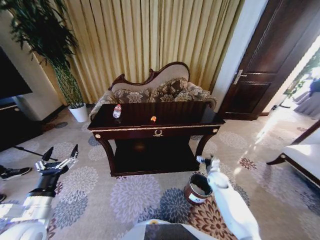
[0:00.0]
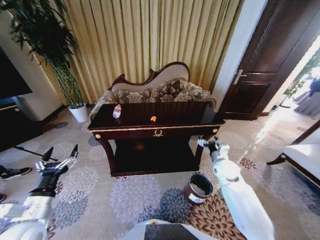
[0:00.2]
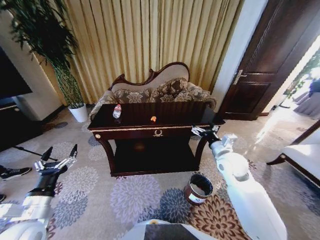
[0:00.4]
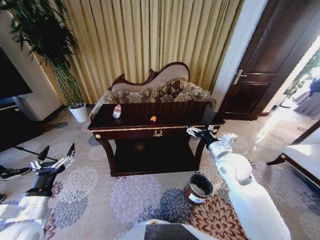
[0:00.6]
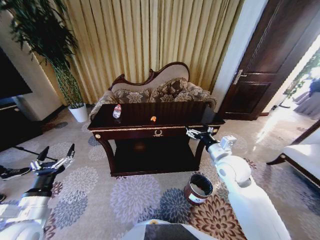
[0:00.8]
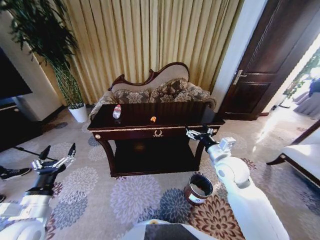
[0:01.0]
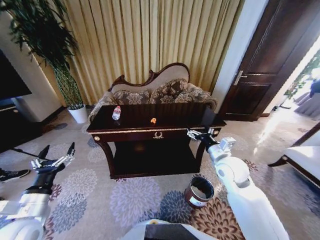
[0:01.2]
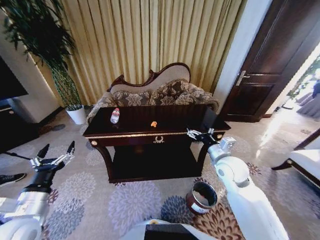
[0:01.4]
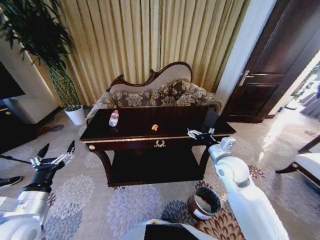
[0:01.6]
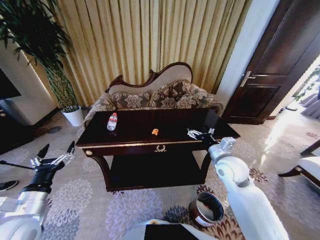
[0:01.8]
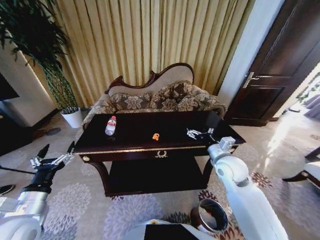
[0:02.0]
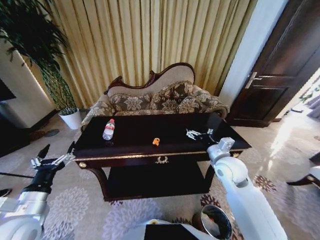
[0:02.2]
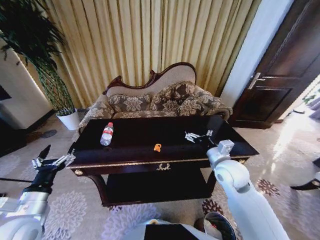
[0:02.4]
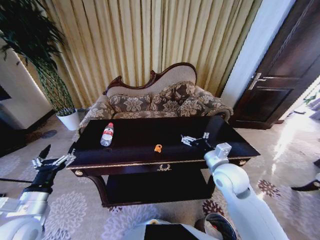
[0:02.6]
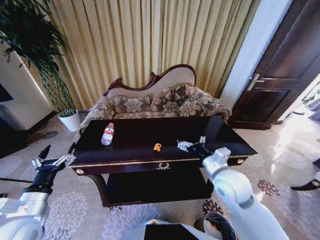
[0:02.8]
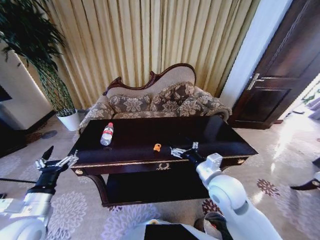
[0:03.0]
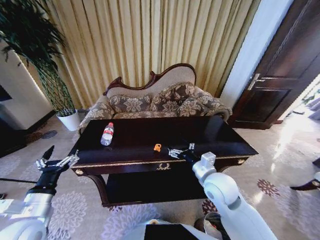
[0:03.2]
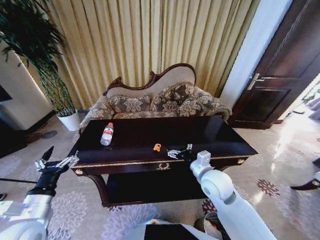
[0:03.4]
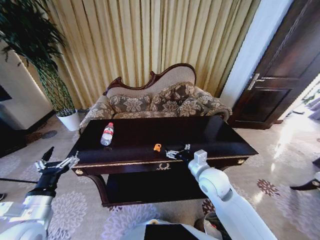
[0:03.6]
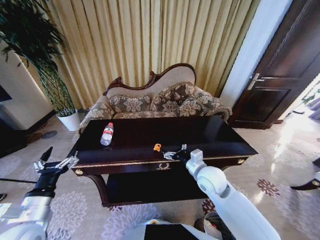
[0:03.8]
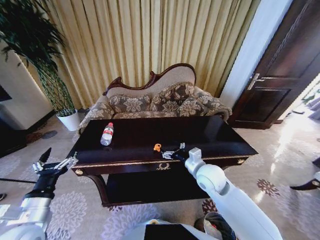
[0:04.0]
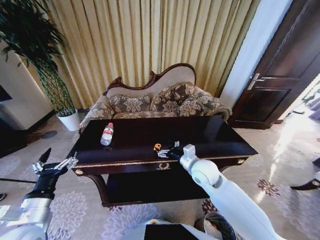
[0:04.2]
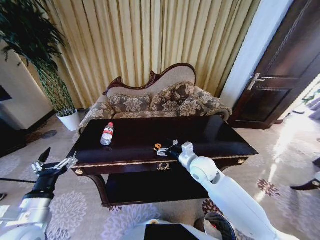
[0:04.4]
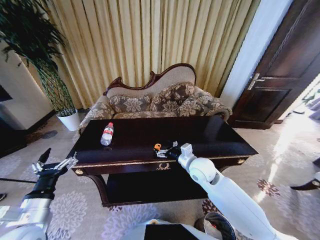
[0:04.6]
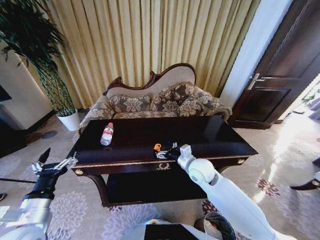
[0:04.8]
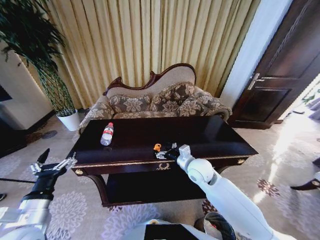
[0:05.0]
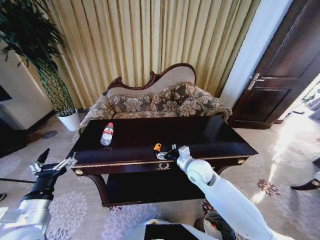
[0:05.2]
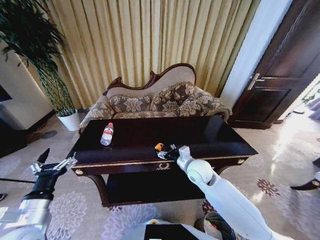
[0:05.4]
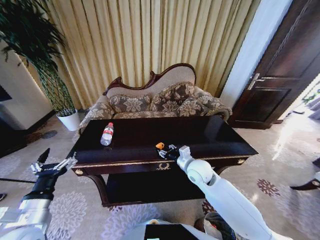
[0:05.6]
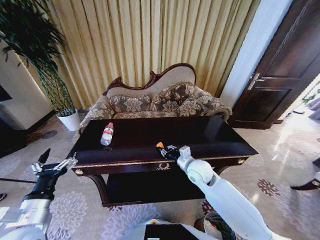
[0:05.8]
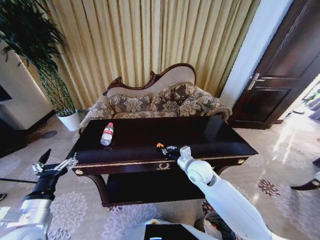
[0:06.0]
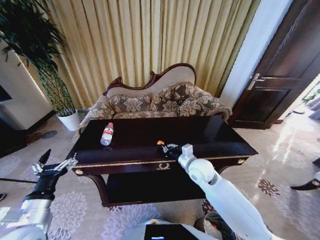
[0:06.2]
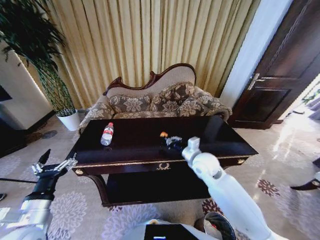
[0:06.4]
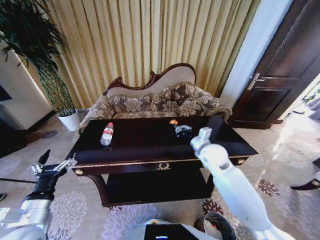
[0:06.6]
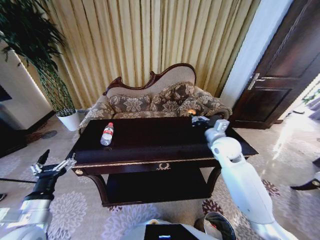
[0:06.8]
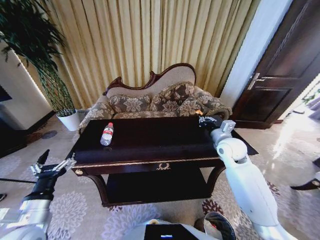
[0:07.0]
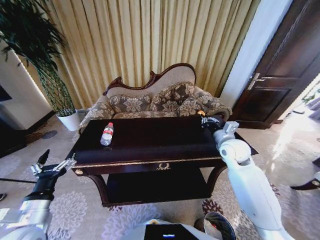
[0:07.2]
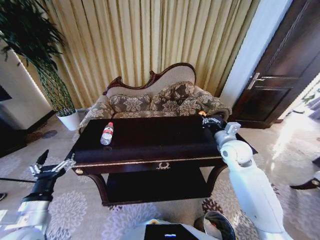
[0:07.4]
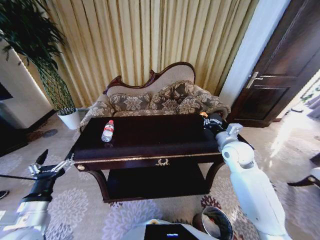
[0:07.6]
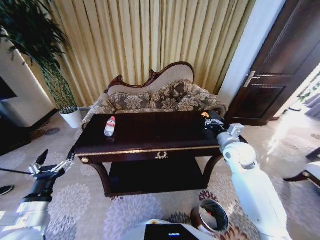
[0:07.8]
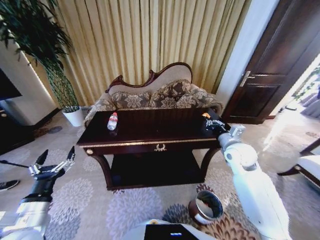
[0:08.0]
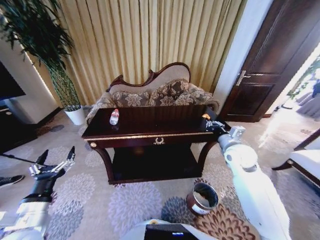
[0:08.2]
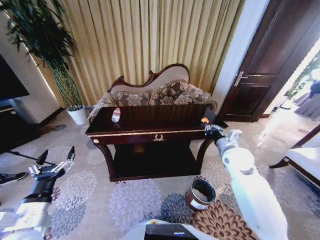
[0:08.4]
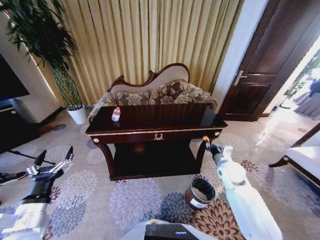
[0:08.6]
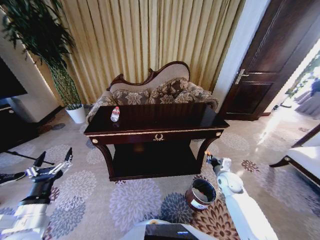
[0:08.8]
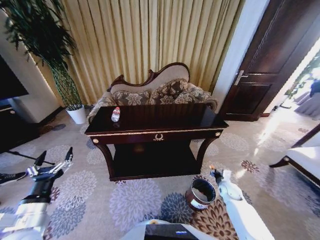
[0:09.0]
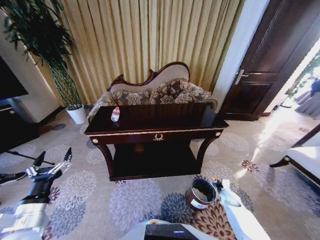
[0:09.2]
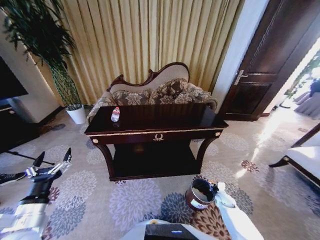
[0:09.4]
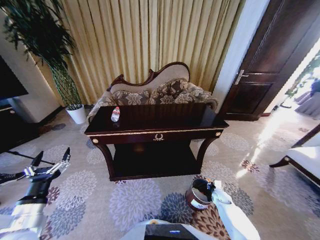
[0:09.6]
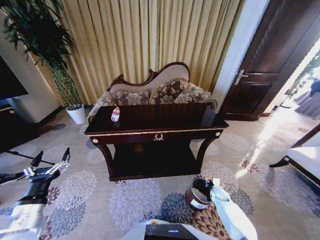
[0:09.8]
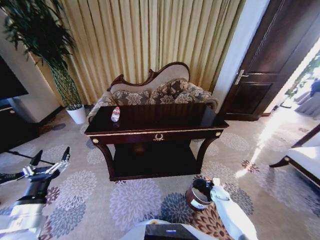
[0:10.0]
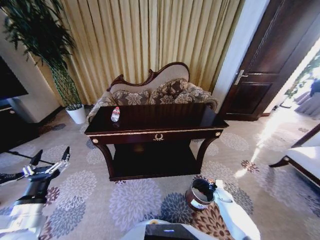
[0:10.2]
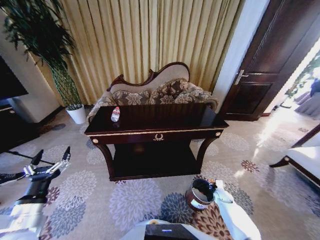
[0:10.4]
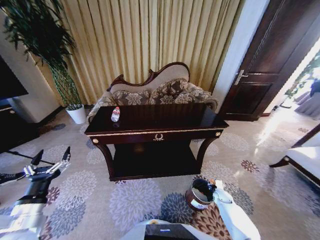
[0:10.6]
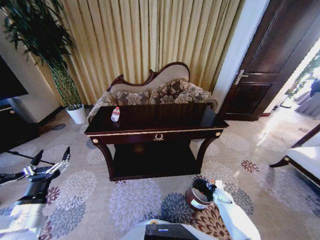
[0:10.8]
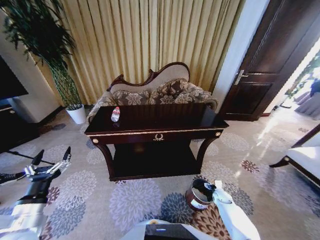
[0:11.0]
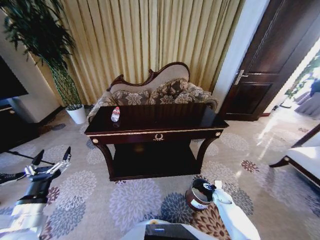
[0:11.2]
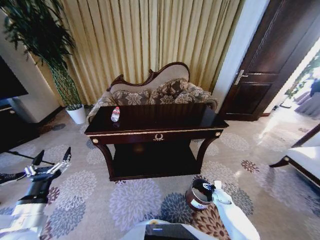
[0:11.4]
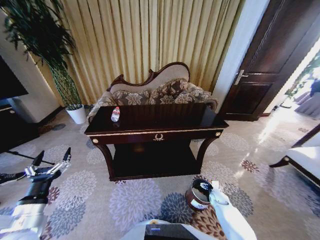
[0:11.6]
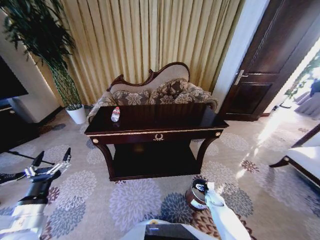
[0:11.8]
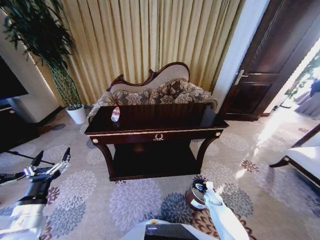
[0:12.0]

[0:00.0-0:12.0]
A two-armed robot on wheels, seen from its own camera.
Task of the whole recording: Move to the front of the table and place the trash on the table into the trash bin.
0:00.0 to 0:01.6: The right gripper goes some 25 cm upward.
0:01.6 to 0:03.0: The right gripper heads backward and to the left, covering approximately 10 cm.
0:03.0 to 0:04.4: The right gripper goes roughly 10 cm forward.
0:04.4 to 0:06.0: The right gripper closes.
0:06.0 to 0:07.6: The right gripper is displaced to the right and upward by roughly 15 cm.
0:07.6 to 0:09.0: The right gripper is displaced downward by roughly 25 cm.
0:09.0 to 0:10.4: The right gripper heads downward, covering roughly 10 cm.
0:10.4 to 0:12.0: The right gripper moves to the left, some 5 cm, and opens.

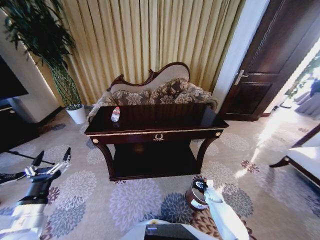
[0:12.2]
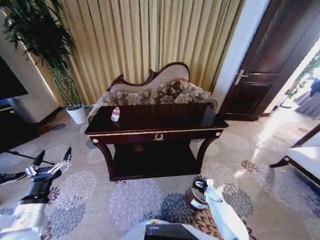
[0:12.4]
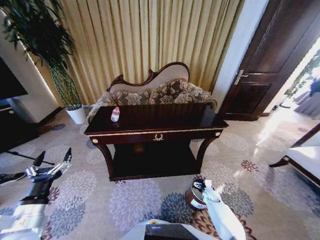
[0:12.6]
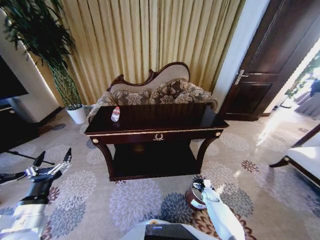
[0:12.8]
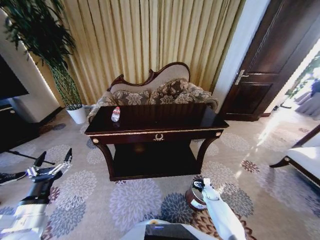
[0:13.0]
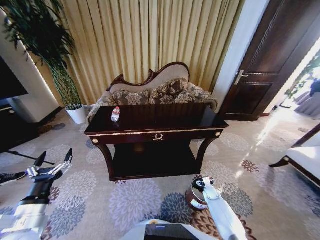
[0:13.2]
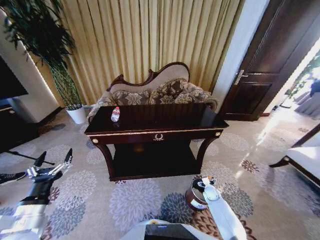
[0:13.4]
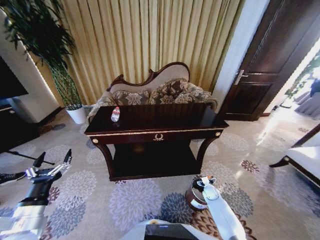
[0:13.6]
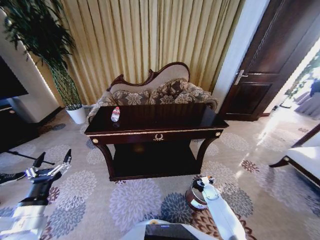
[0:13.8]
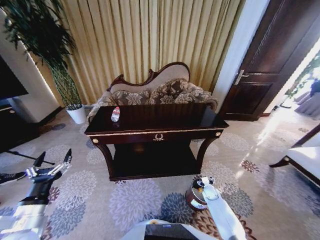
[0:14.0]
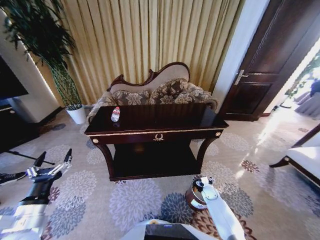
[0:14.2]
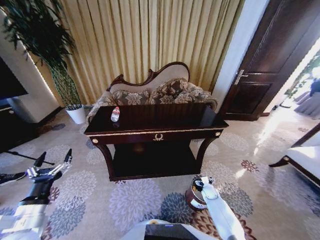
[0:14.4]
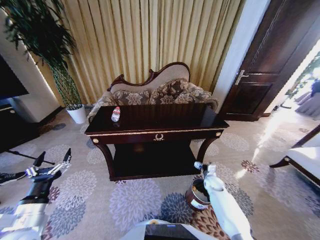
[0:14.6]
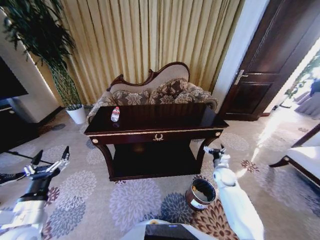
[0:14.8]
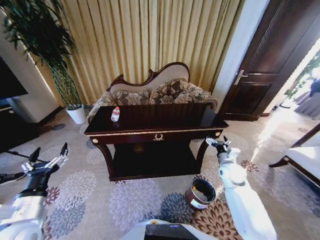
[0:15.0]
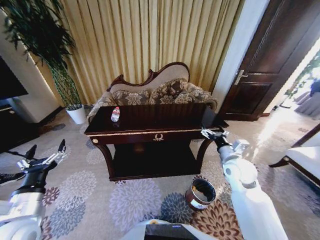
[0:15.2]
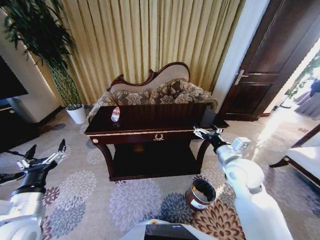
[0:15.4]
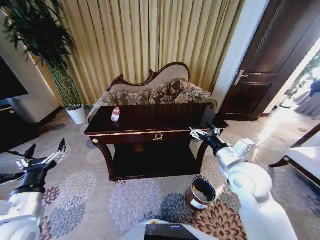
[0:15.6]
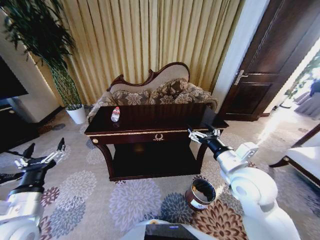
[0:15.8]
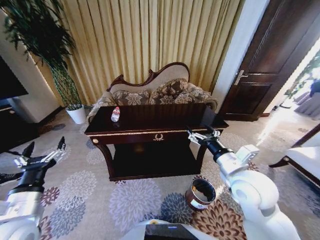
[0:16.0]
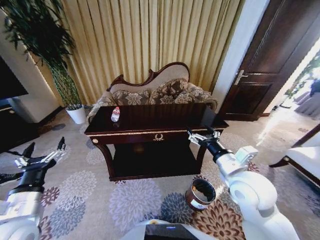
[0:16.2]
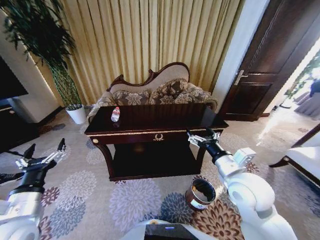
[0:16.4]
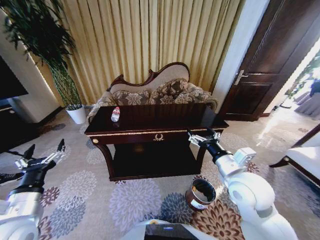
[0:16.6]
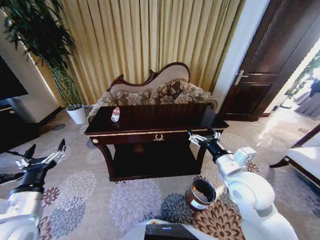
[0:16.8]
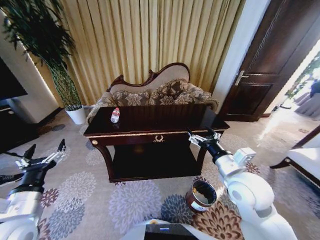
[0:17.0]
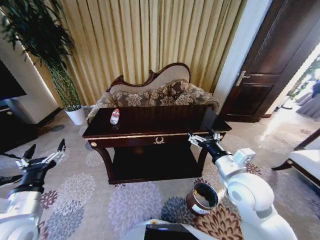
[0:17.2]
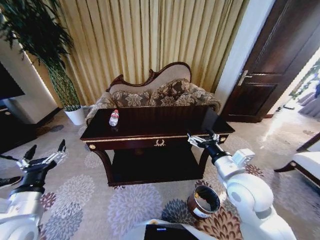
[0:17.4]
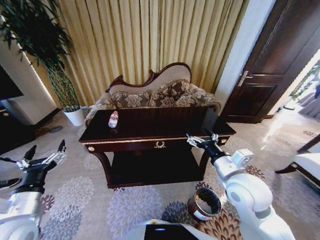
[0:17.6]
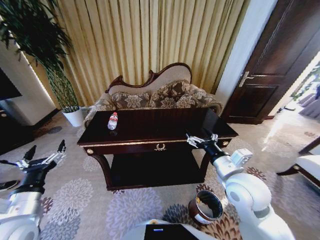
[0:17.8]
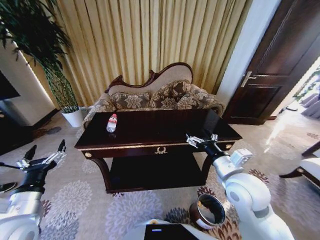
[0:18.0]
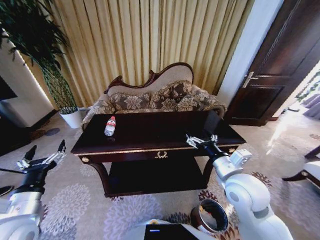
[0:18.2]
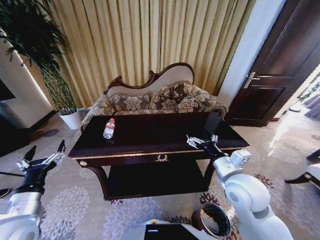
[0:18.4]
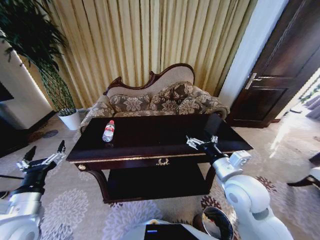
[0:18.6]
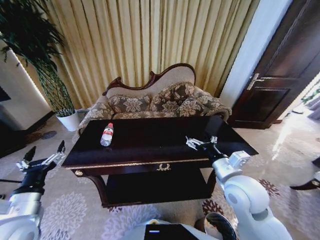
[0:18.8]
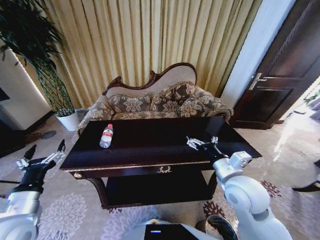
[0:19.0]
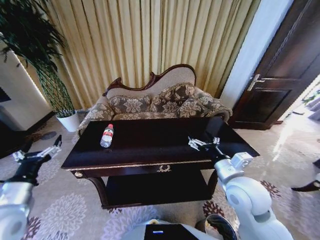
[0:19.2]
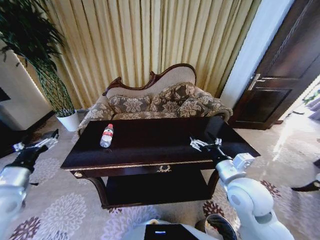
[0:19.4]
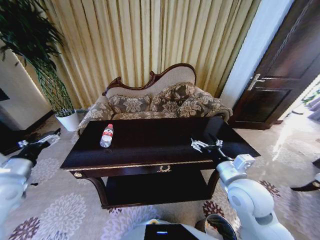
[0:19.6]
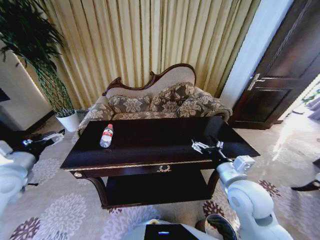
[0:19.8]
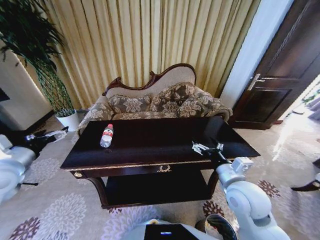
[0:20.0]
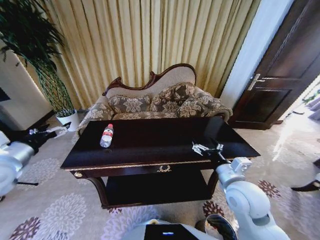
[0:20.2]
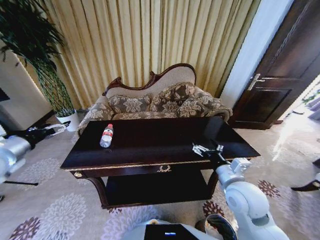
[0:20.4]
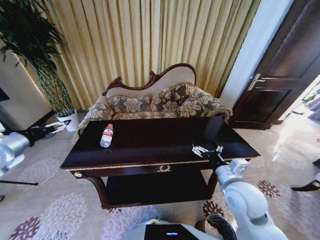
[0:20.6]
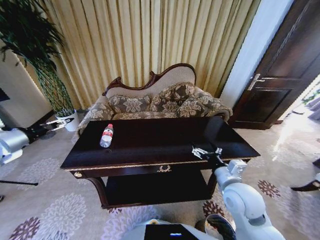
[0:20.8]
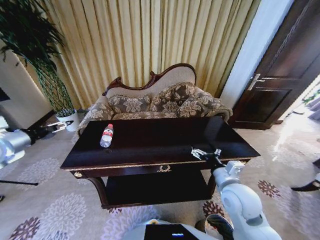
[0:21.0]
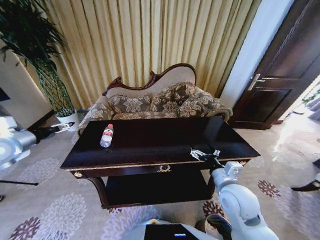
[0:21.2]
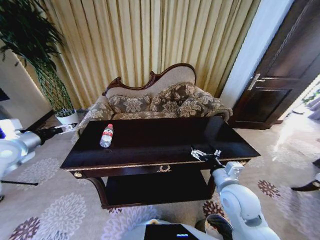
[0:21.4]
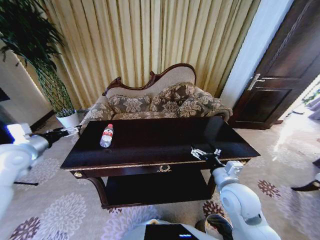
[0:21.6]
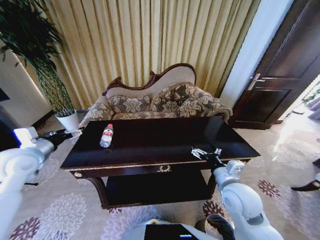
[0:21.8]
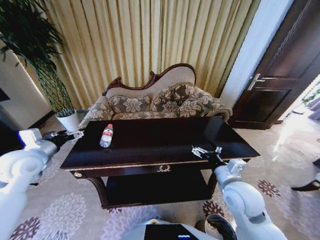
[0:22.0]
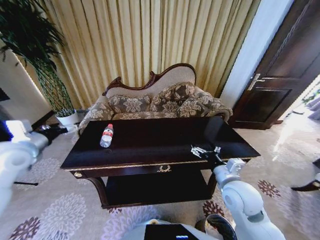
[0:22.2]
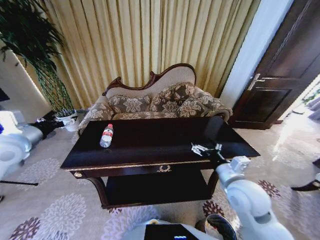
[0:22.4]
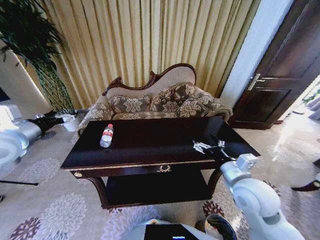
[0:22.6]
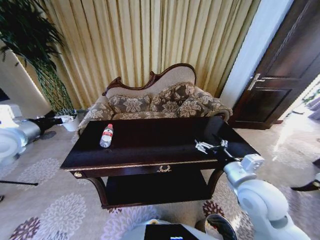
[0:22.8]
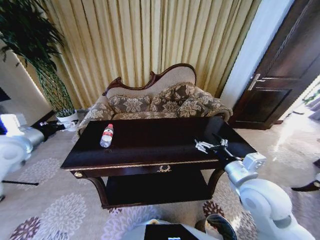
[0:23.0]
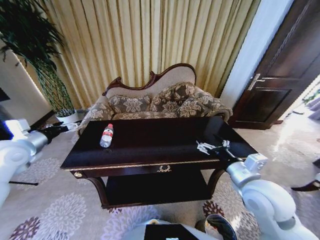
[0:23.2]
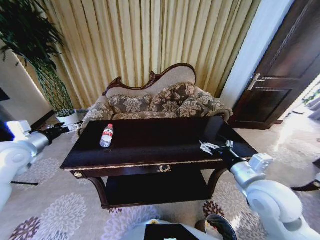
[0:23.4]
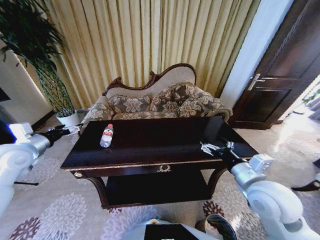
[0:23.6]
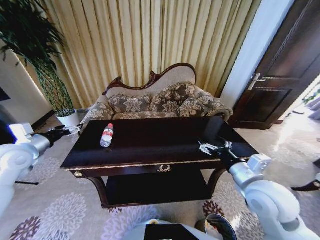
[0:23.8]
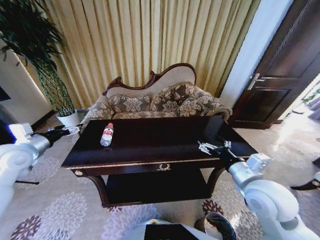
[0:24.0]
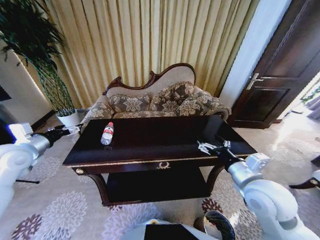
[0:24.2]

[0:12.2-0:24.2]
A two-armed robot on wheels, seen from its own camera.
Task of the whole recording: Move to the front of the table and place the trash on the table into the trash bin.
0:13.8 to 0:15.2: The right gripper shifts some 35 cm upward.
0:15.2 to 0:16.6: The right gripper shifts approximately 15 cm backward, upward and to the left.
0:18.2 to 0:19.8: The left gripper shifts roughly 15 cm forward, upward and to the left.
0:19.8 to 0:21.2: The left gripper goes roughly 10 cm forward and to the left.
0:21.2 to 0:22.6: The left gripper moves to the right and upward, roughly 10 cm. Meanwhile the right gripper travels upward by approximately 5 cm.
0:22.6 to 0:24.2: The left gripper moves downward, roughly 10 cm.
